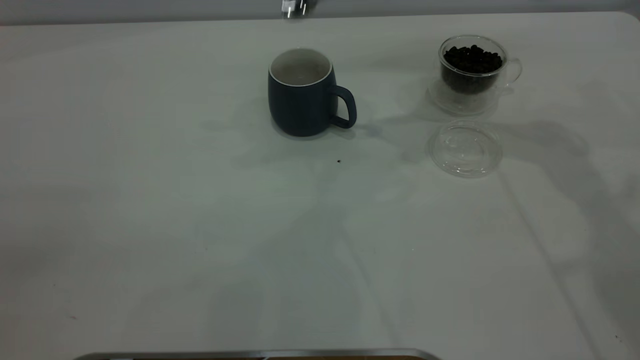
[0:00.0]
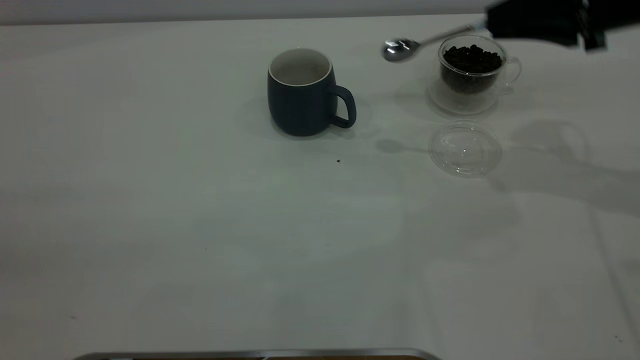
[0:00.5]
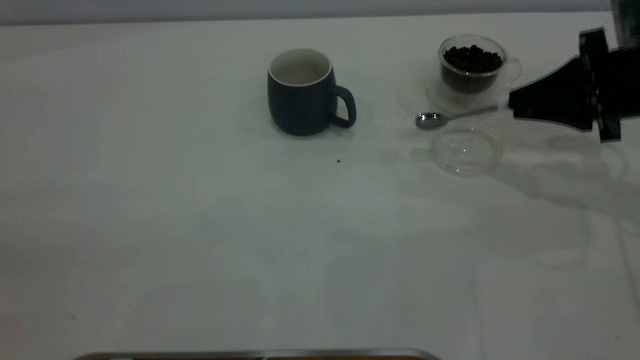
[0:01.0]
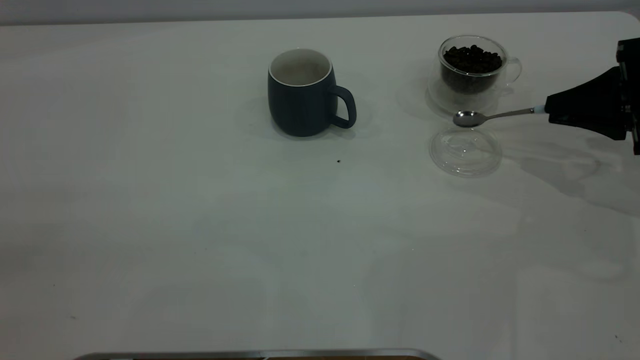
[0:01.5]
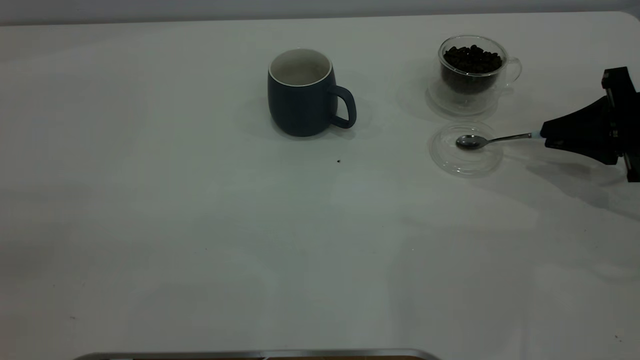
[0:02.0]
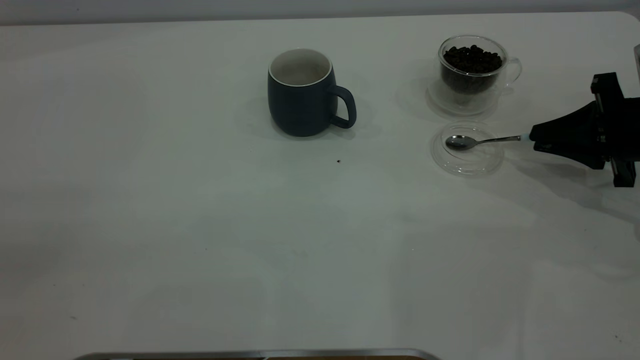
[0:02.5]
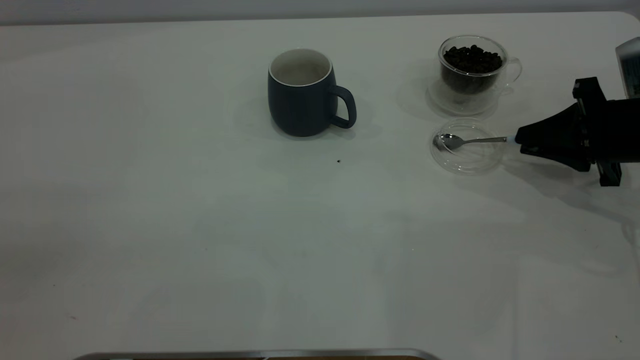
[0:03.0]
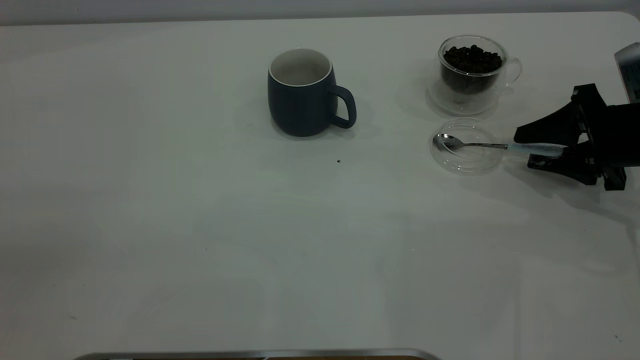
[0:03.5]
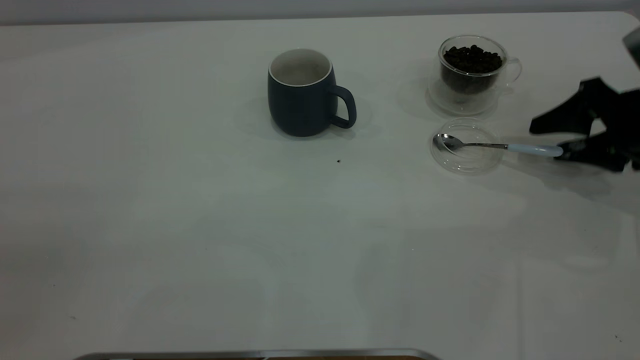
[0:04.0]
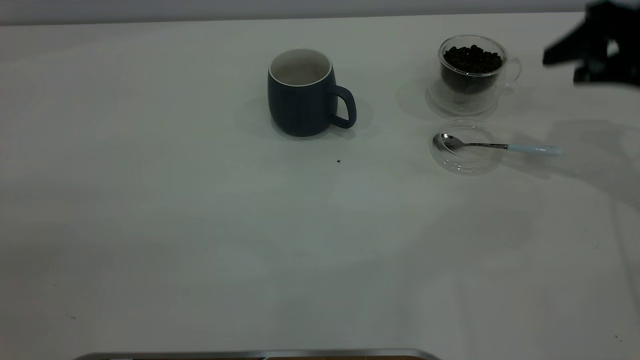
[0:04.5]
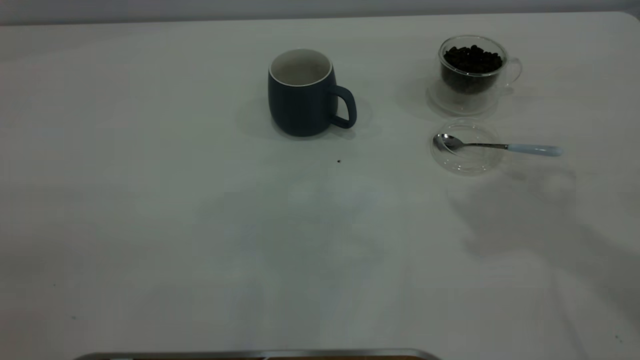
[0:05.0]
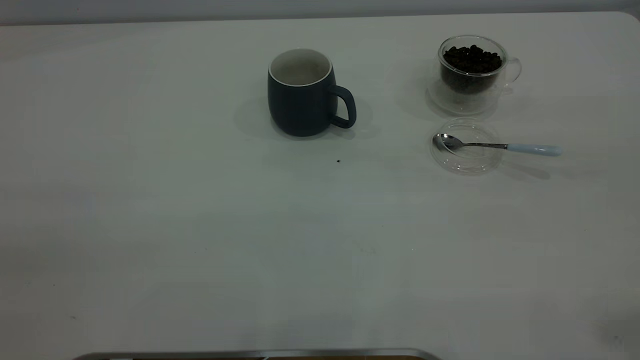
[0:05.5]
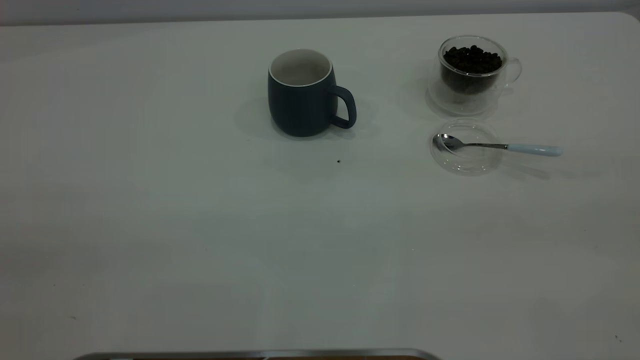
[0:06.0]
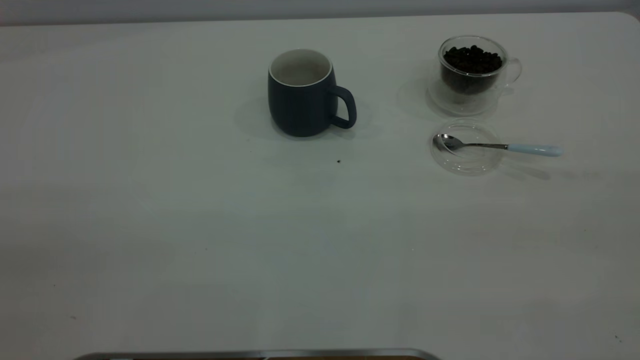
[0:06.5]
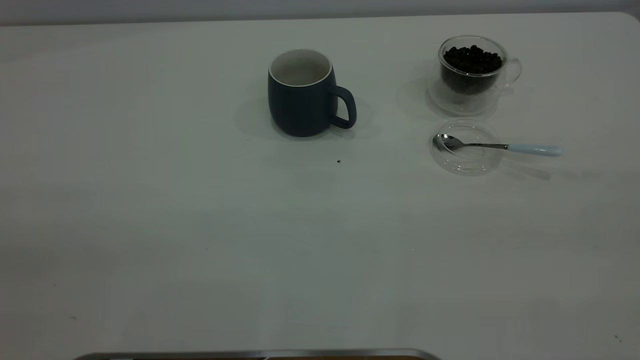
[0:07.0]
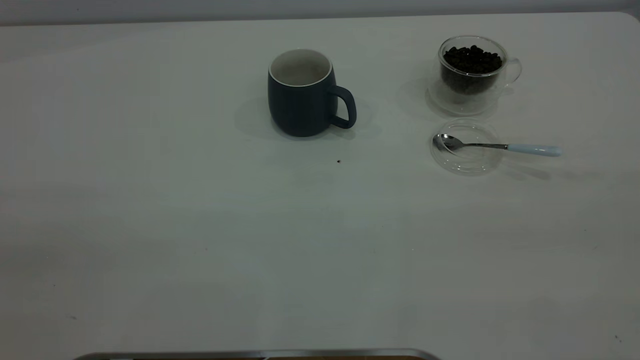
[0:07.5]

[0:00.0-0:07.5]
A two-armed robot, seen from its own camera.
Task of the whole recording: the left gripper place the grey cup in the center of the table, the right gripper take the blue spoon from the cup lid and scoop out the coffee beans from the coffee cup and put them into the grey cup, the right gripper put the spoon back into the cup lid.
Step, 0:00.0 to 0:04.0: Place the spoon back in its original place.
0:00.0 to 0:02.0: The right gripper is displaced downward, to the right and backward by about 25 cm.
0:02.0 to 0:04.0: The right gripper opens its fingers.
0:04.0 to 0:05.5: The right gripper travels upward and backward by roughly 40 cm.

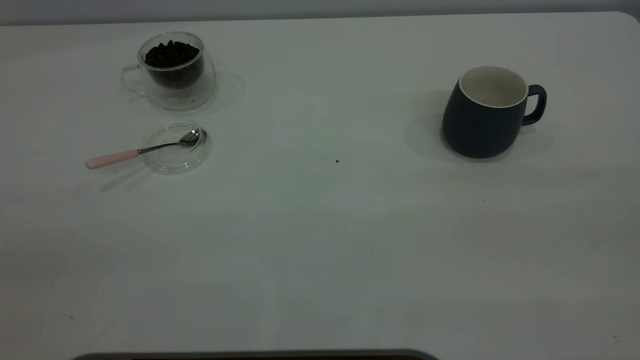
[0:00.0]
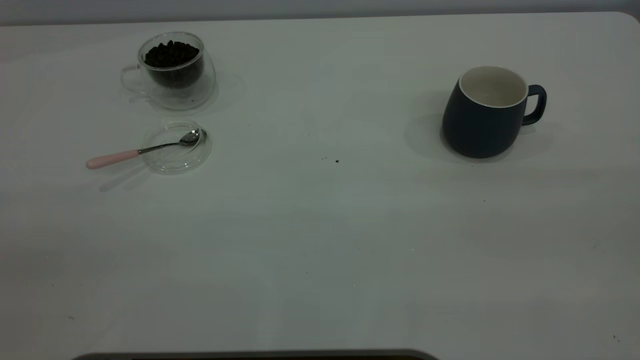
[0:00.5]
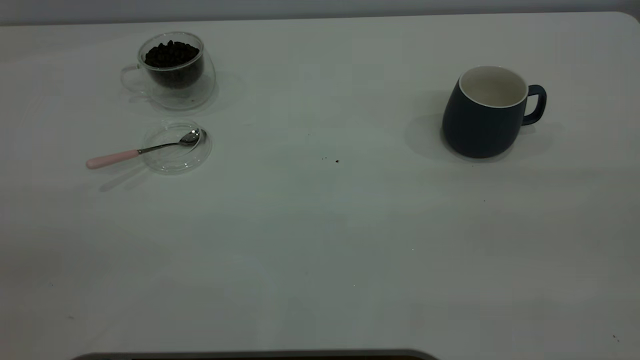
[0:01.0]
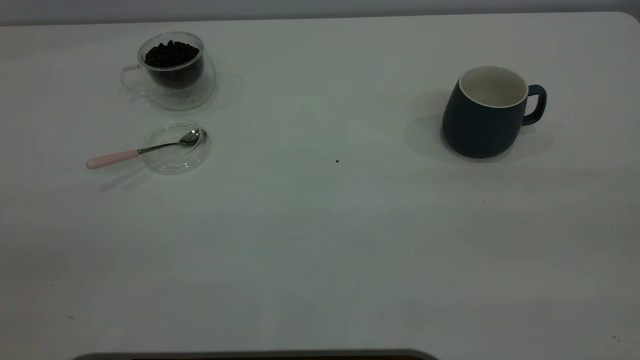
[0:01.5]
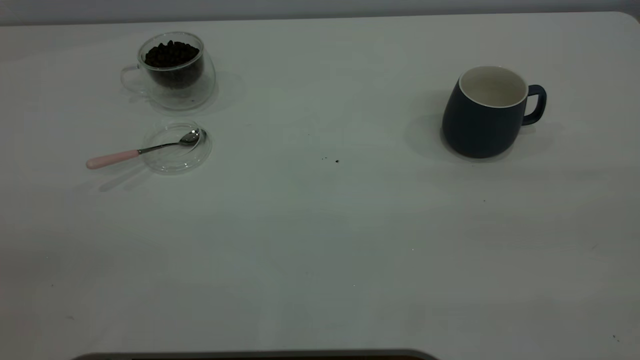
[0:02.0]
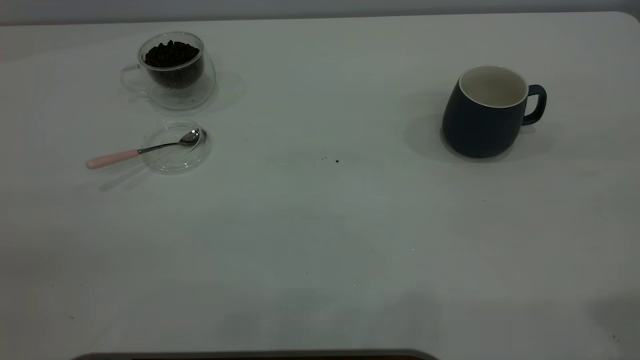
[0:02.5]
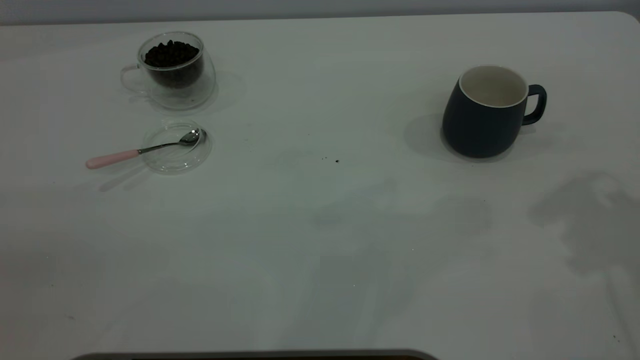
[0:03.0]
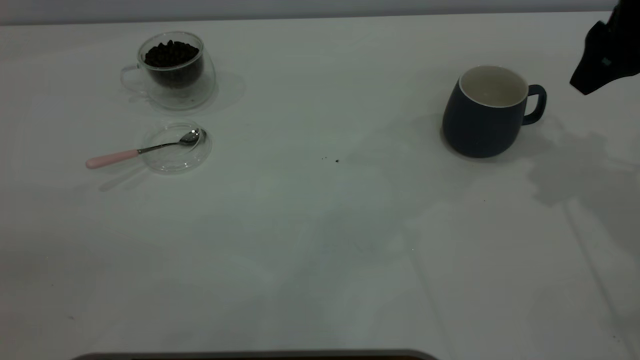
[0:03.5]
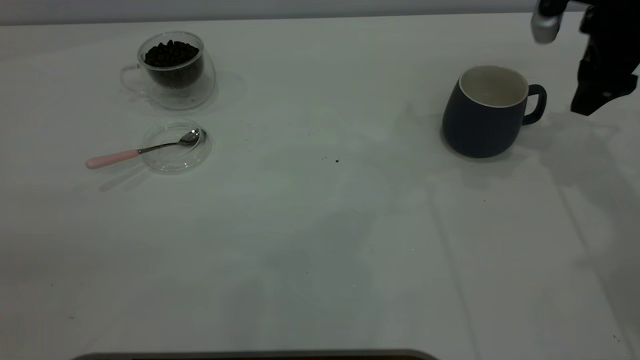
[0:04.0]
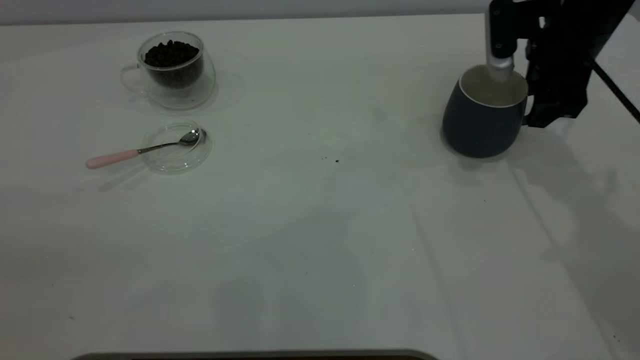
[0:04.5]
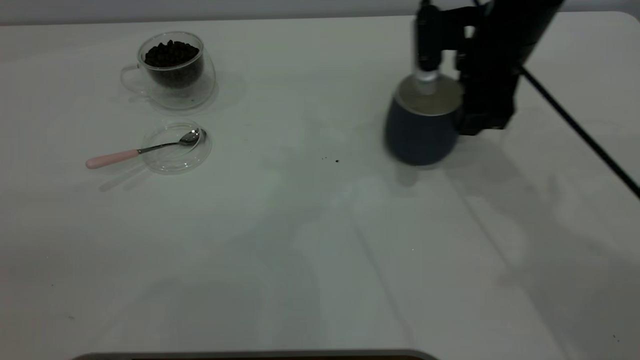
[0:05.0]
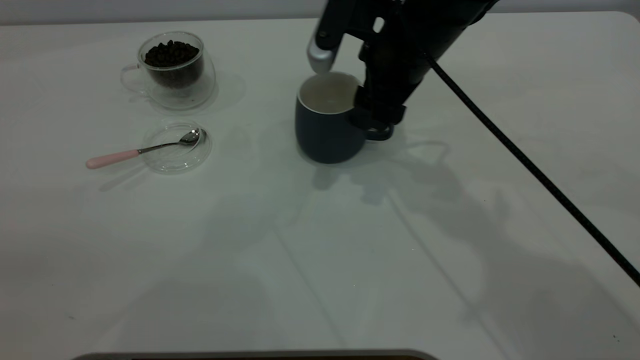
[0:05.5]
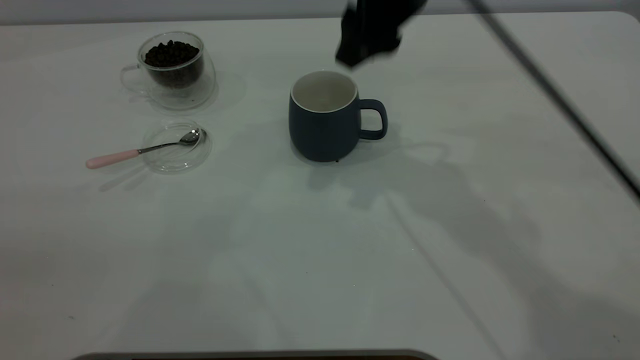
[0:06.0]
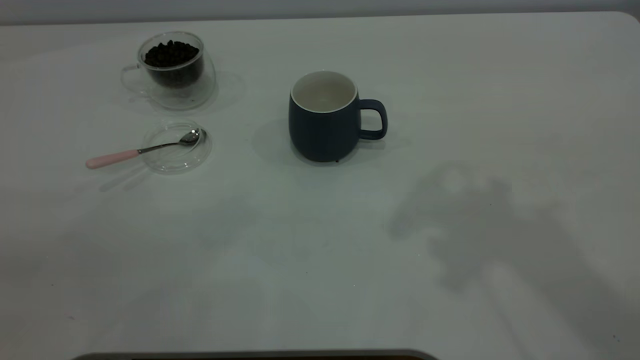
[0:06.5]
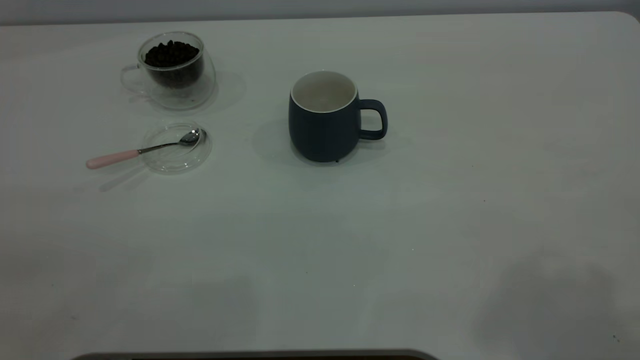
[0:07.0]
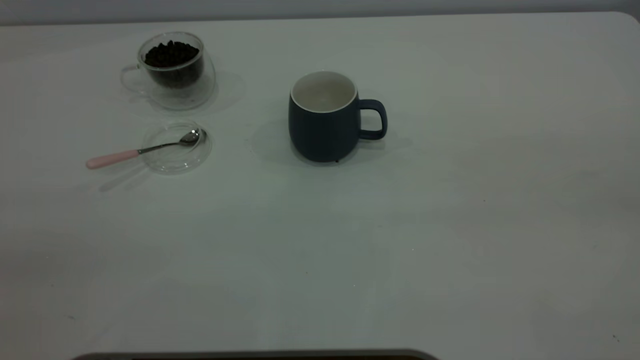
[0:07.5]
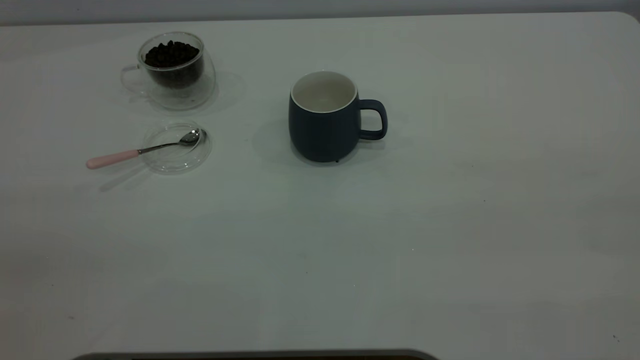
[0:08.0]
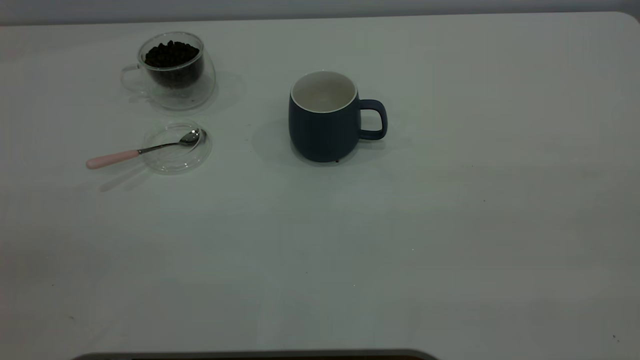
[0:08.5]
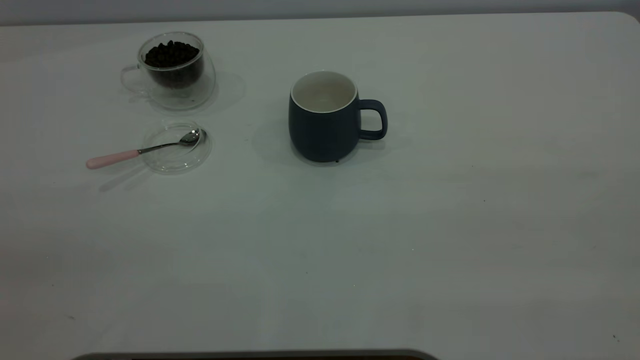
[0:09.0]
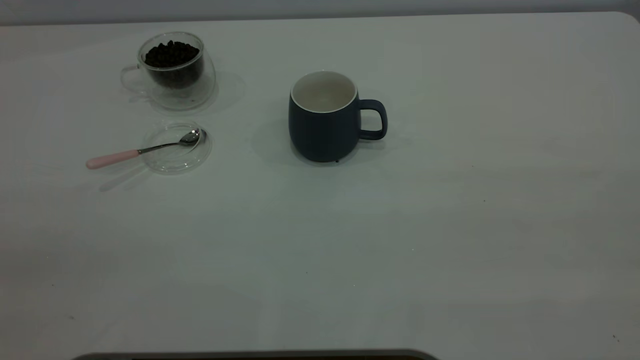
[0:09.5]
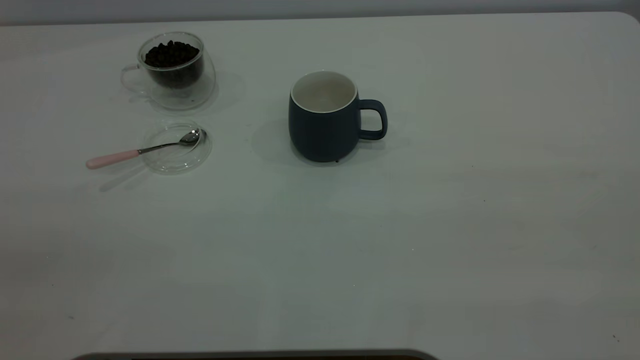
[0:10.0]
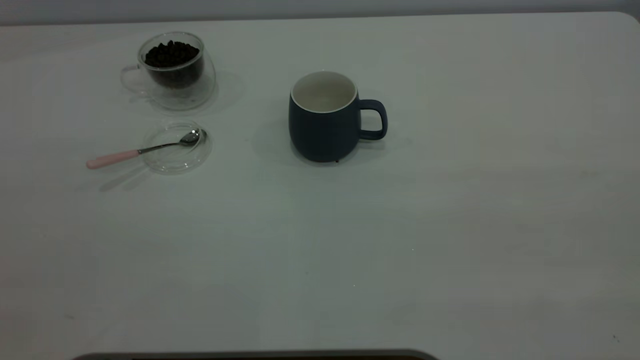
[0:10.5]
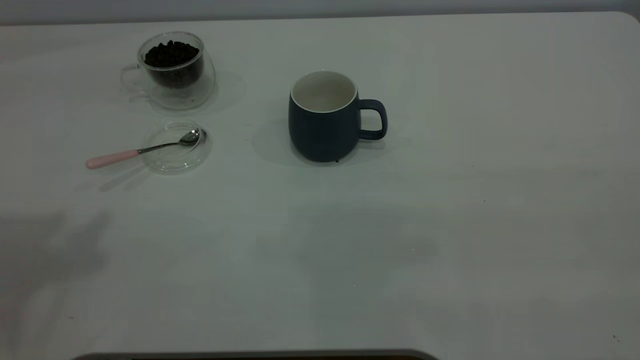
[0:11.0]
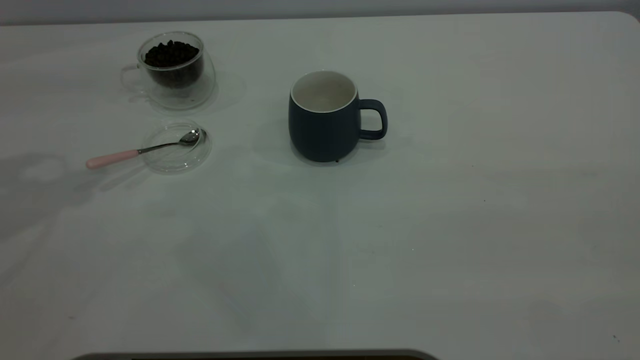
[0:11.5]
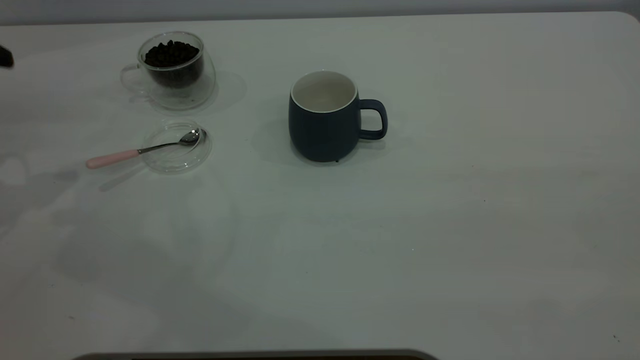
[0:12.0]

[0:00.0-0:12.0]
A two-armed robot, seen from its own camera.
Task of the whole recording: the right gripper place the grey cup in the center of the table, the left gripper take the pink spoon from the cup lid and scoop out the coffee beans from the coffee cup and put them into the grey cup, the left gripper put the spoon back into the cup lid.
Step, 0:00.0 to 0:06.0: Move the cup to the center of view.
0:00.0 to 0:02.0: Both grippers stay put.
0:02.0 to 0:04.0: The right gripper shifts approximately 50 cm forward and downward.
0:04.0 to 0:06.0: The right gripper heads to the left and upward, covering roughly 25 cm.
0:06.0 to 0:08.0: The right gripper moves backward and to the right, some 40 cm.
